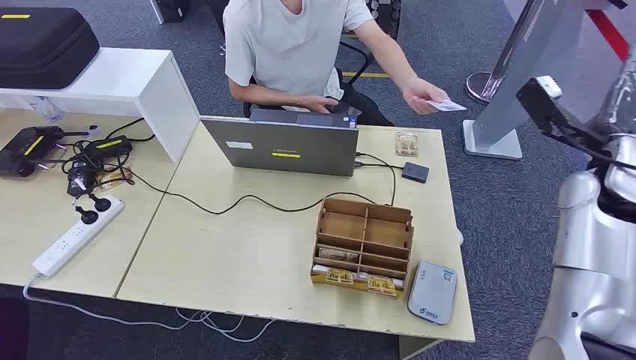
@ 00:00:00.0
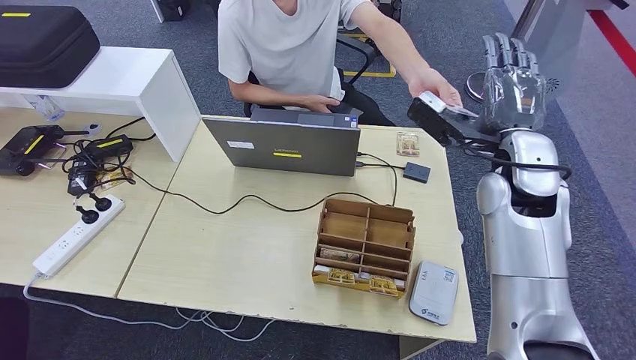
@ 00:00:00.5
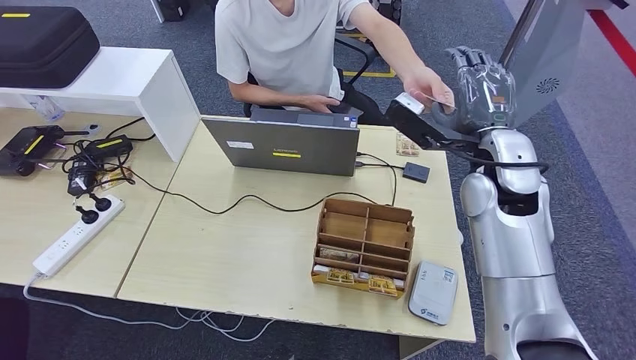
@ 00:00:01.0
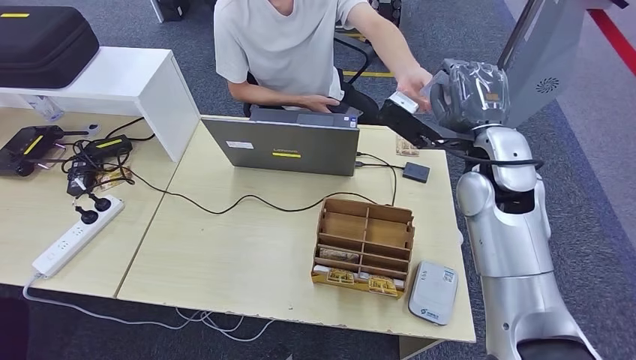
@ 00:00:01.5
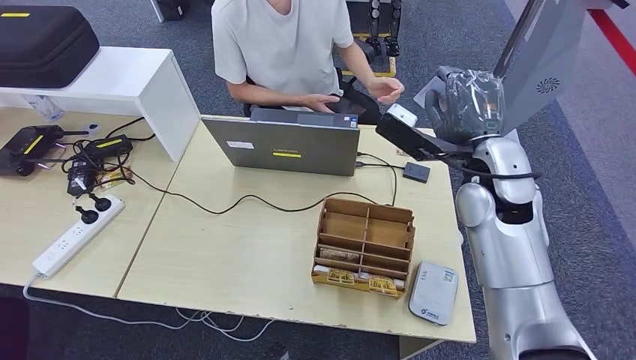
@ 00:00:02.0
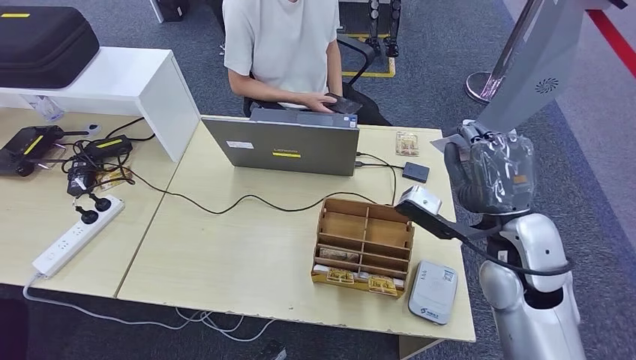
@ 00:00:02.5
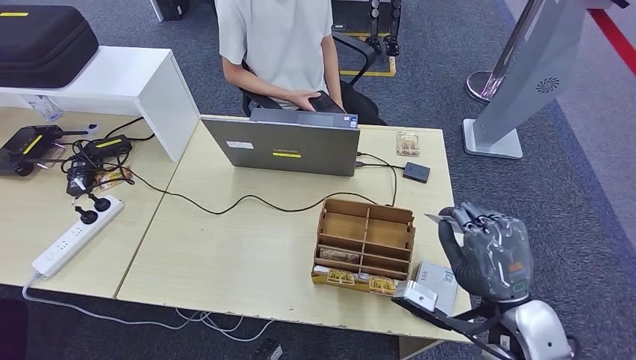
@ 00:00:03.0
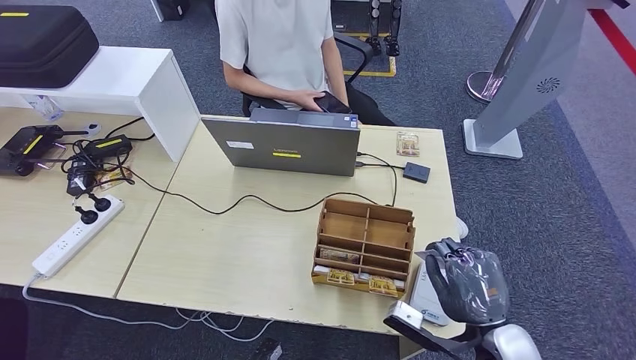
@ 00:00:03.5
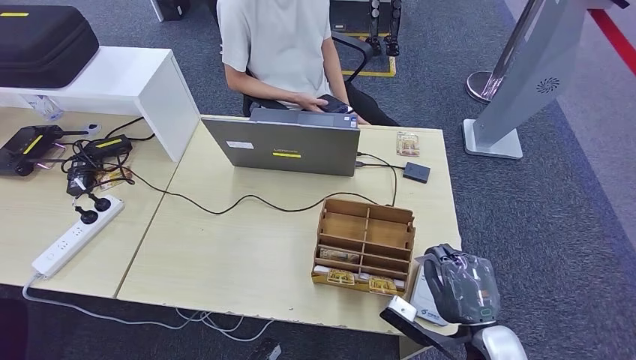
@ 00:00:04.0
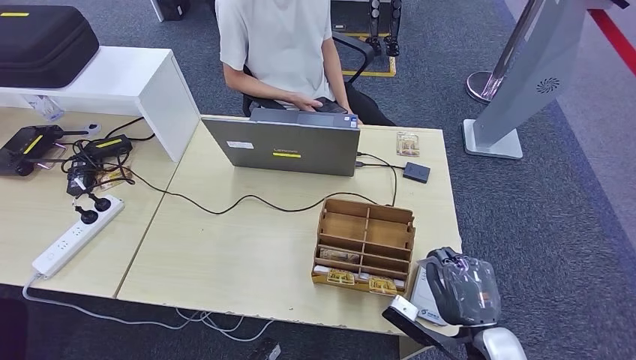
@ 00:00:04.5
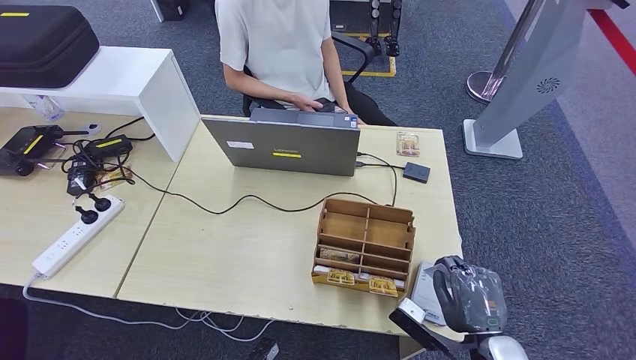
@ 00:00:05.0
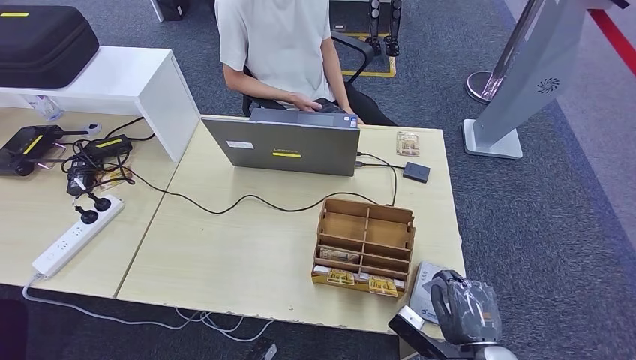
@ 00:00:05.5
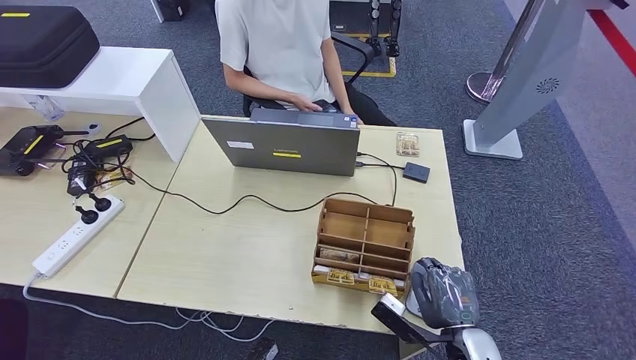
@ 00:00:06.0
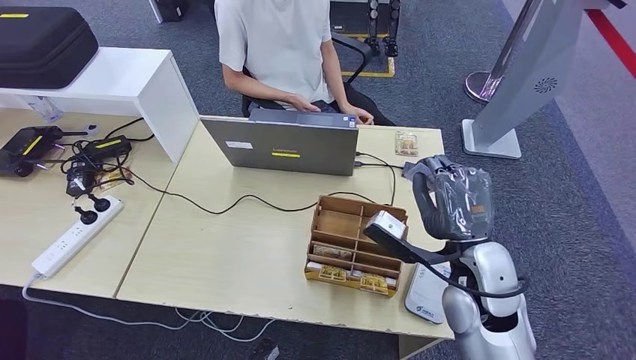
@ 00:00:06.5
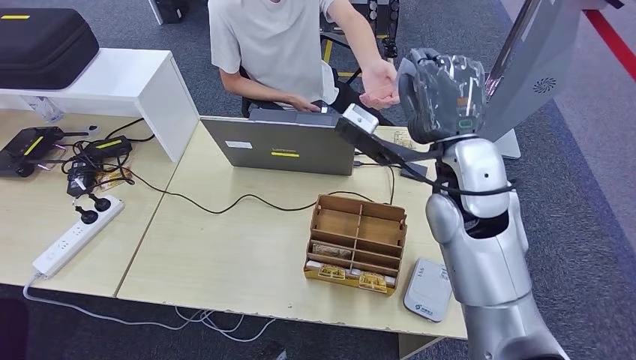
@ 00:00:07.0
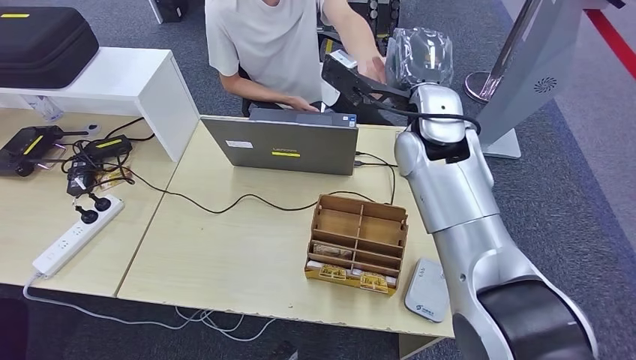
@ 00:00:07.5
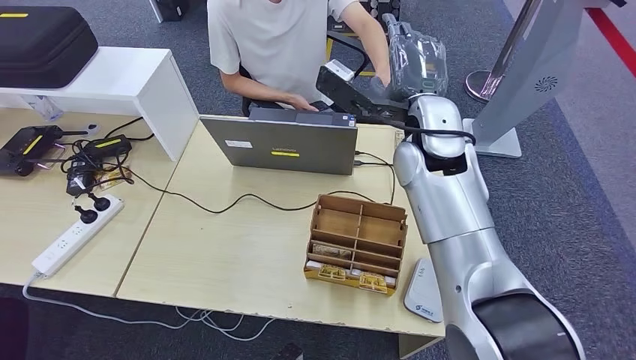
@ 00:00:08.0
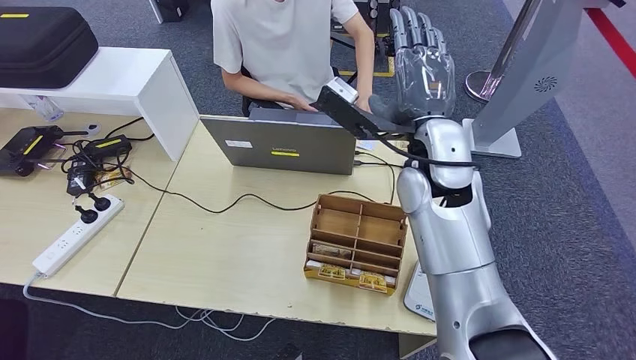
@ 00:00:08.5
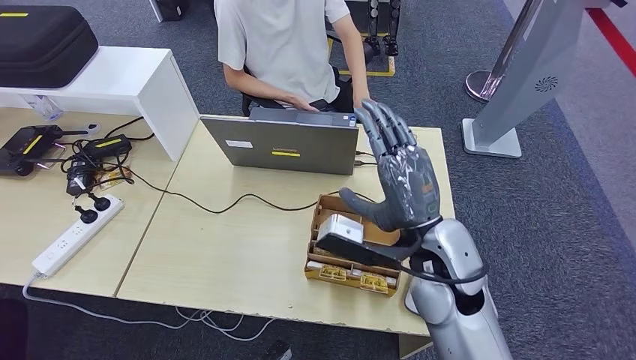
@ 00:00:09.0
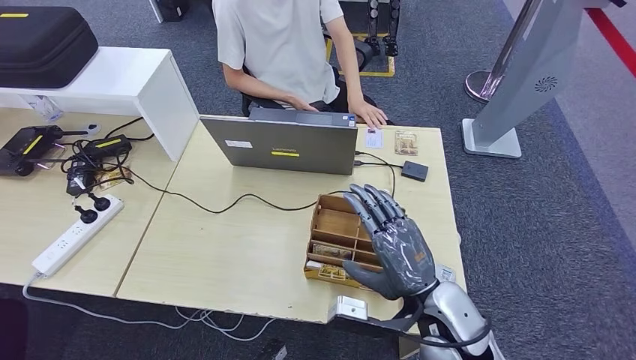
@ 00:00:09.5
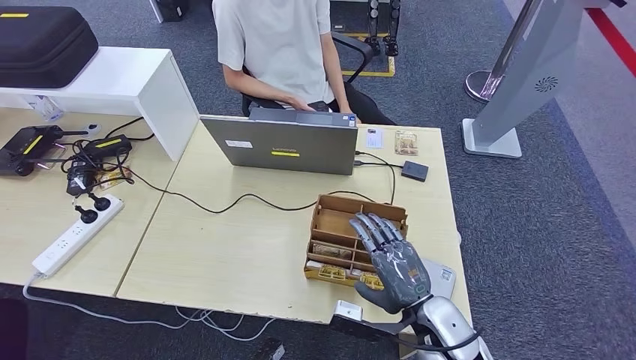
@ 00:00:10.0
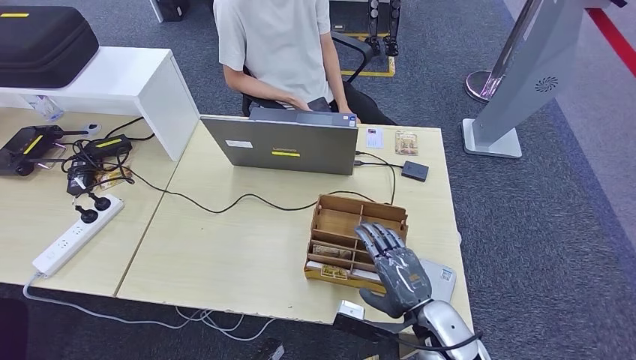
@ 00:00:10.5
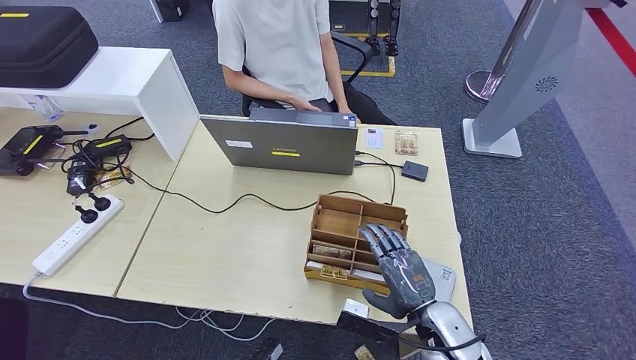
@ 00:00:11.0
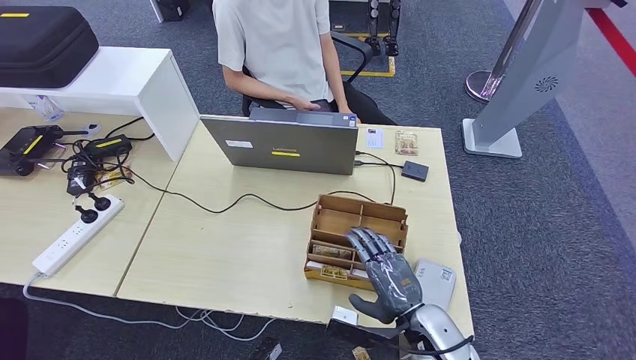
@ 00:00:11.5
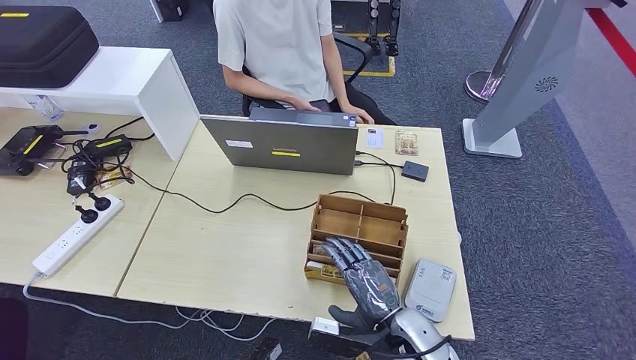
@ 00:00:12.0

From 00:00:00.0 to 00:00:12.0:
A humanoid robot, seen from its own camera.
Step, from 00:00:00.0 to 00:00:02.0: Take the ID card from the person's hand.
Step, from 00:00:03.0 to 00:00:06.0: Place the ID card on the card reader.
Step, from 00:00:06.5 to 00:00:09.5: Hand the ID card to the person.
From 00:00:02.0 to 00:00:04.0: The right hand shifts approximately 30 cm backward and downward.
From 00:00:04.0 to 00:00:06.0: There are only small adjustments of the hands.
From 00:00:06.0 to 00:00:08.0: The right hand goes roughly 40 cm upward, forward and to the left.
From 00:00:08.0 to 00:00:10.0: The right hand shifts some 30 cm downward and backward.
From 00:00:10.0 to 00:00:12.0: The right hand moves some 5 cm.

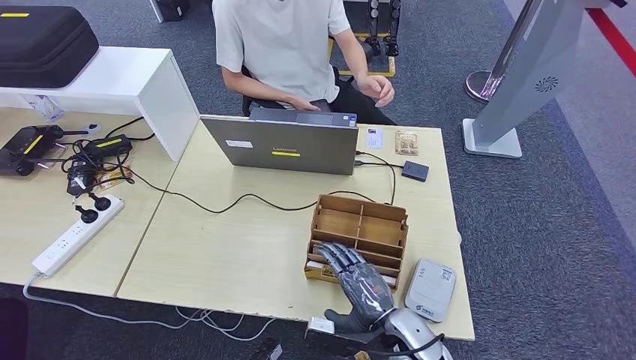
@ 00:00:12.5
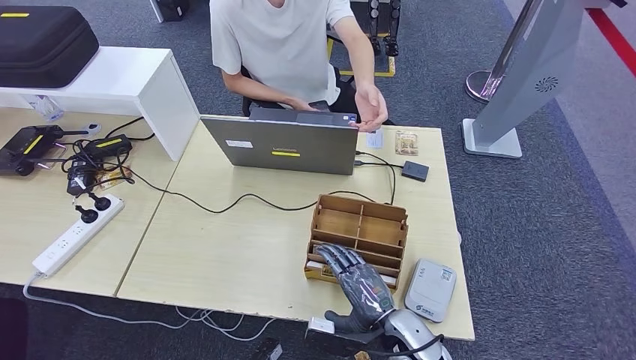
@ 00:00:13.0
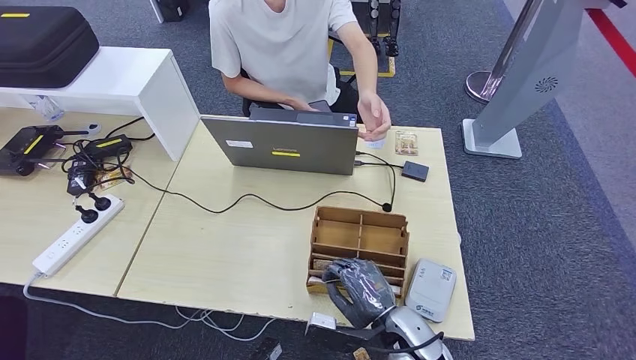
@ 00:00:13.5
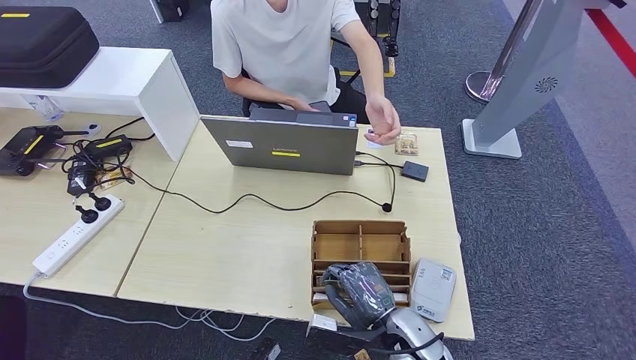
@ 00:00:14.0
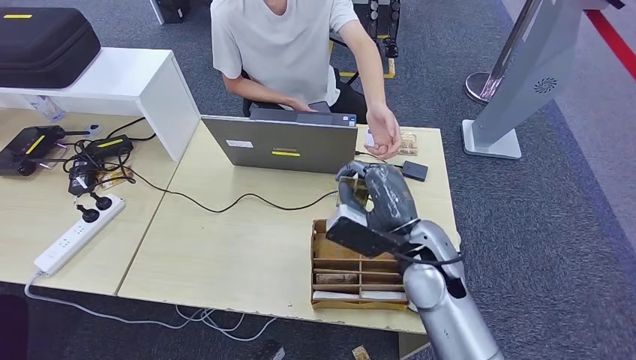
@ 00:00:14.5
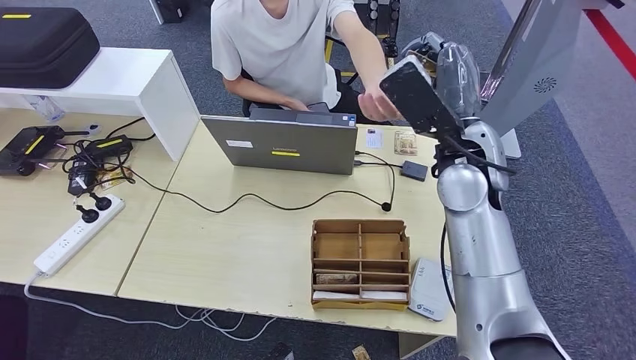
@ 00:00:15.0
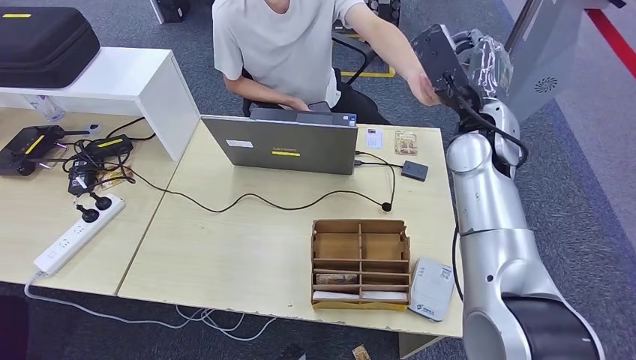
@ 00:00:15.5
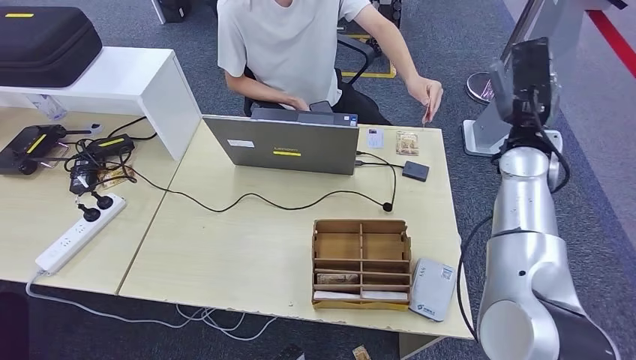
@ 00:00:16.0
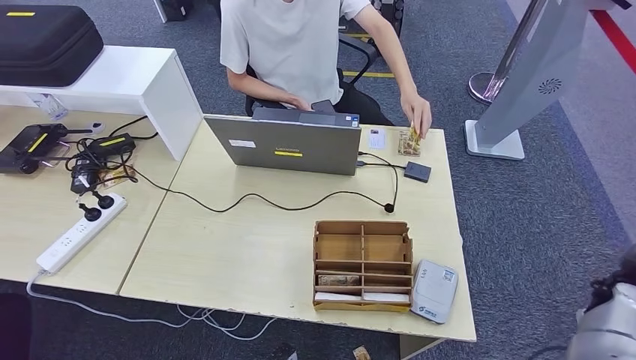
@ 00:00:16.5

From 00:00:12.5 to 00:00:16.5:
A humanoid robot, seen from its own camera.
Step, from 00:00:13.0 to 00:00:15.0: Pick up the room key from the key card box.
Step, from 00:00:15.5 to 00:00:16.5: Hand the room key to the person.
From 00:00:12.5 to 00:00:14.5: The right hand heads upward and forward, covering about 15 cm.
From 00:00:14.5 to 00:00:16.5: The right hand travels to the right by roughly 30 cm.
